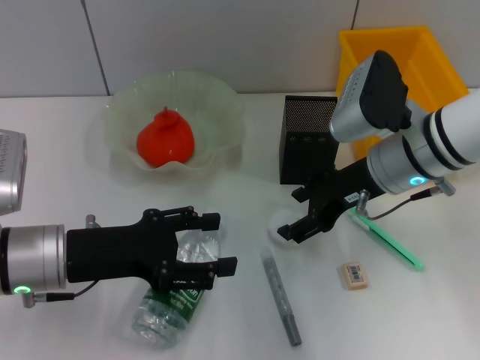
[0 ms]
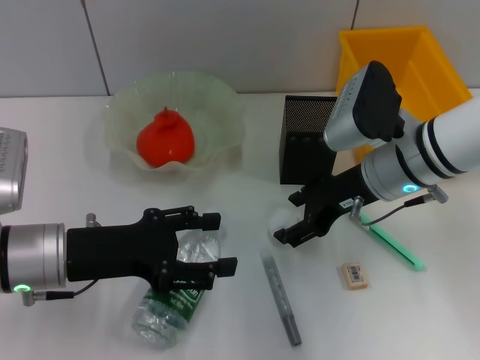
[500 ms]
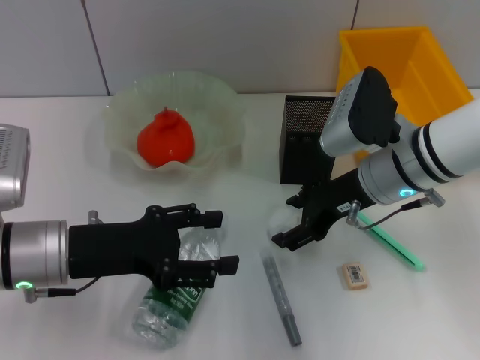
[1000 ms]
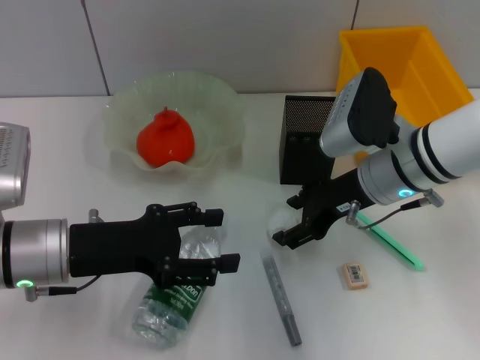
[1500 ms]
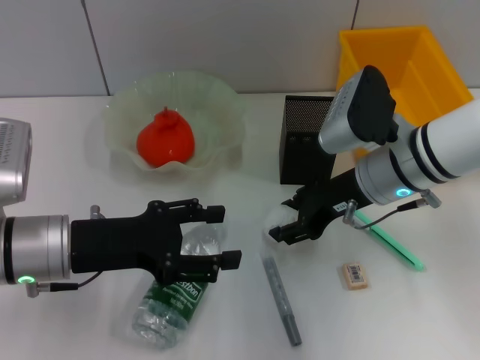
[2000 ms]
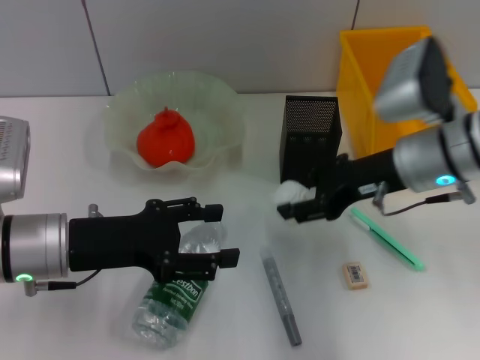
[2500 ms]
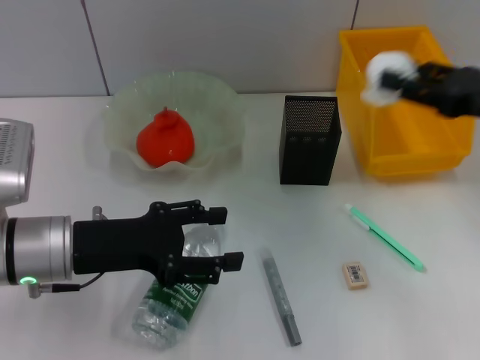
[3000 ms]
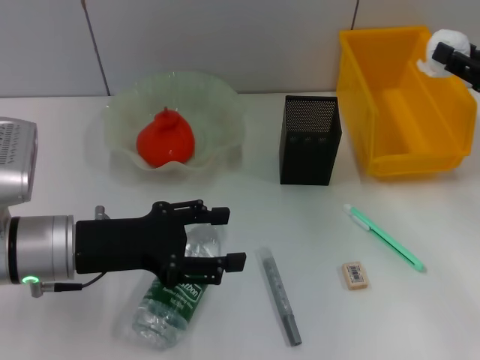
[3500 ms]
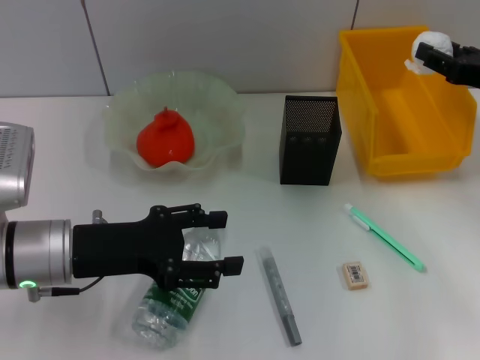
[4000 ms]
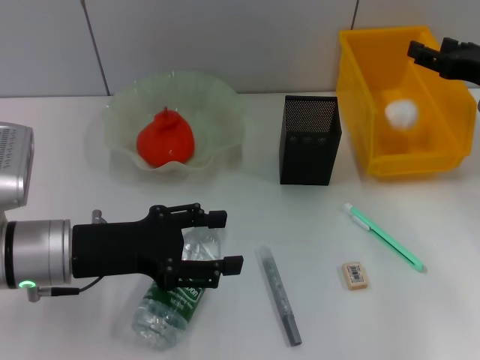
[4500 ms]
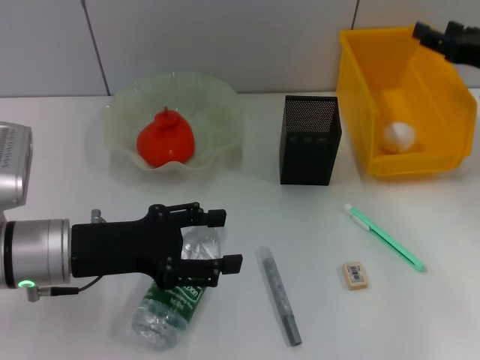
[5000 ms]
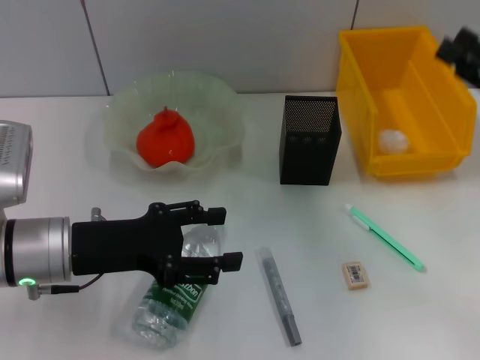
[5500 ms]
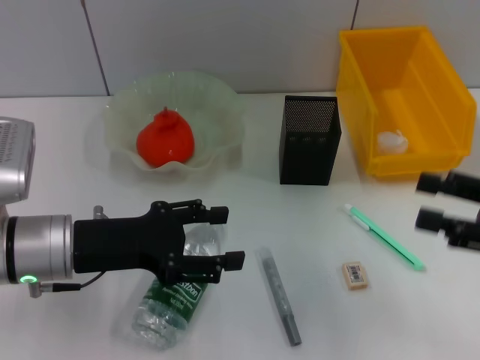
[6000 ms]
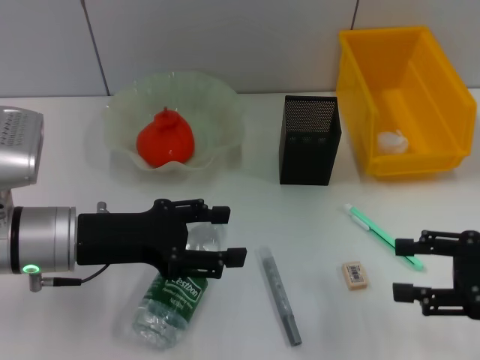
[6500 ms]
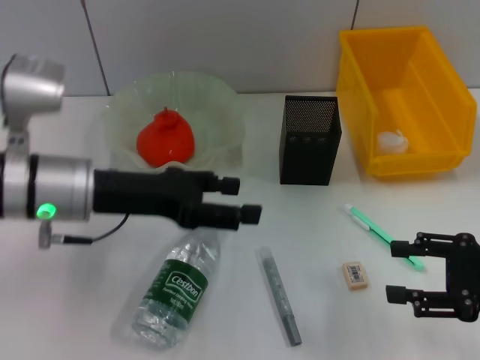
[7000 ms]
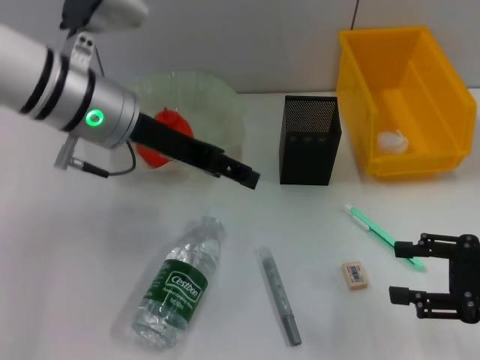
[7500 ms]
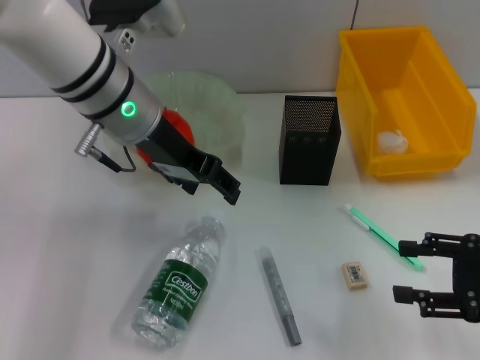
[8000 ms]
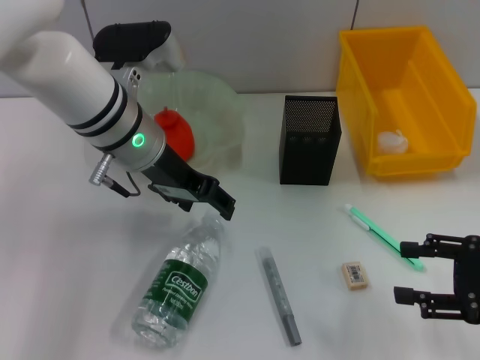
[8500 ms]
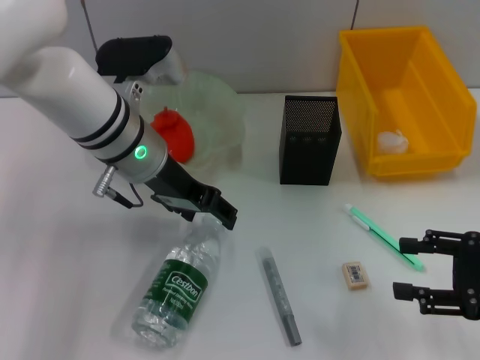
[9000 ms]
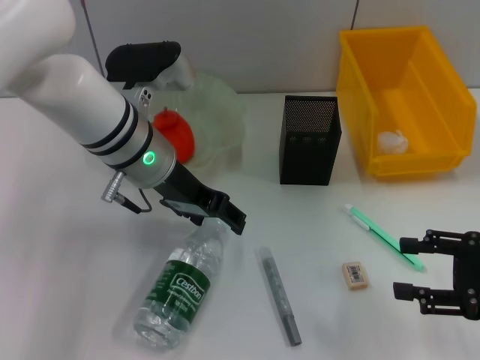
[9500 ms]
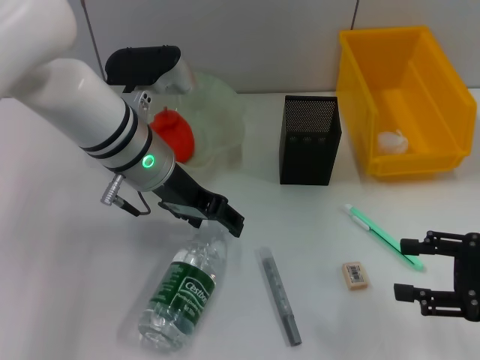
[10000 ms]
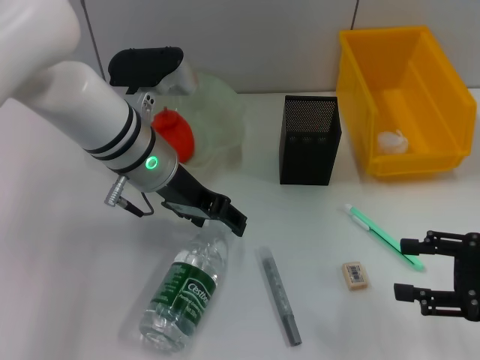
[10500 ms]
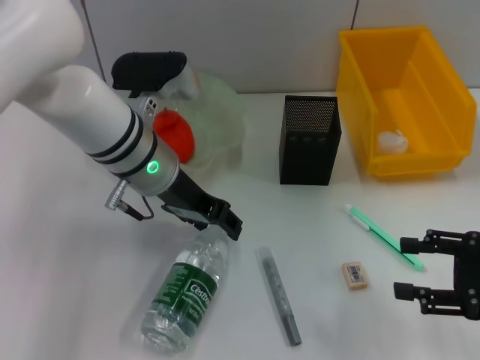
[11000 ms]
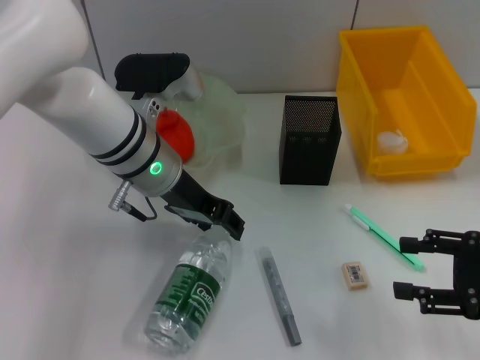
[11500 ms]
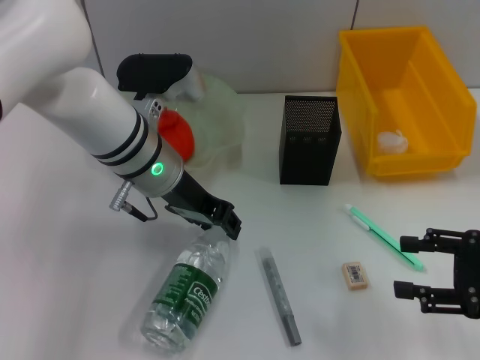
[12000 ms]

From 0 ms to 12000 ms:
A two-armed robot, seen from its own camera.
Step, from 2000 ms to 4500 ms: Place the paper ball into the trash can with the right hand.
From 0 ms to 2000 ms: The right gripper closes up.
From 2000 ms to 4000 ms: The right gripper moves to the right, about 15 cm.
From 4000 ms to 6000 ms: The right gripper shifts roughly 15 cm backward.
From 6000 ms to 8000 ms: The left gripper moves forward, upward and to the right, approximately 20 cm.
From 8000 ms to 10000 ms: The left gripper shifts about 5 cm downward.
From 10000 ms to 12000 ms: The left gripper closes its fingers.

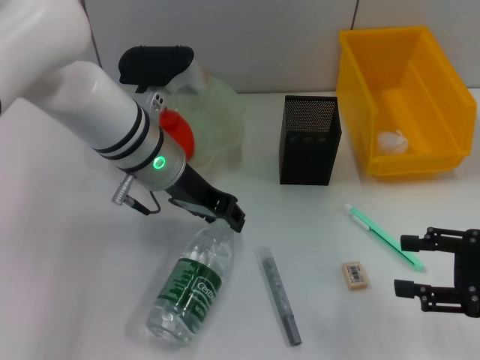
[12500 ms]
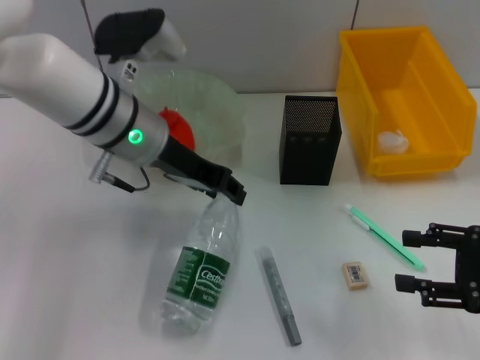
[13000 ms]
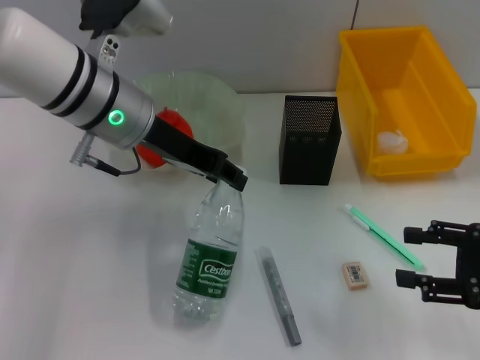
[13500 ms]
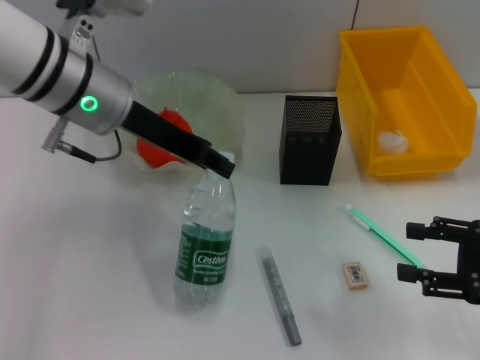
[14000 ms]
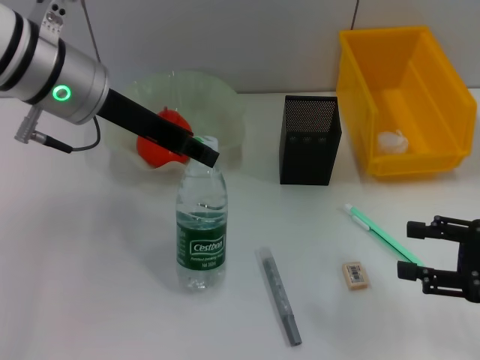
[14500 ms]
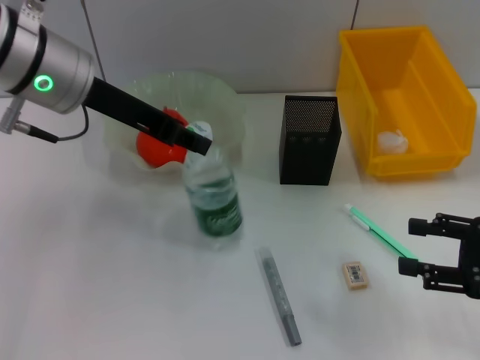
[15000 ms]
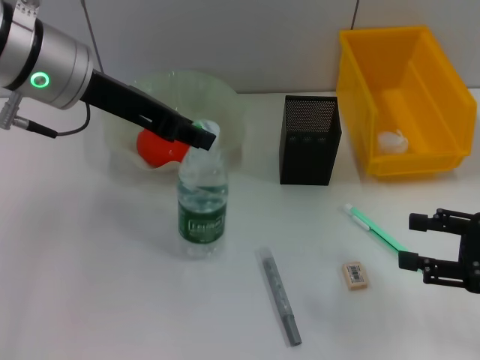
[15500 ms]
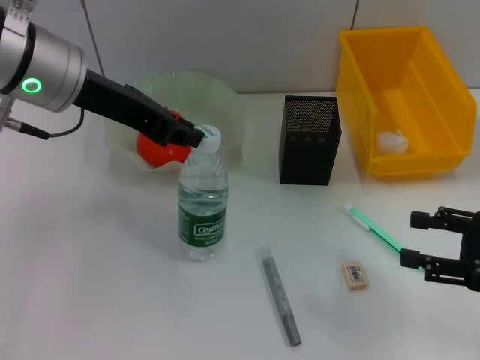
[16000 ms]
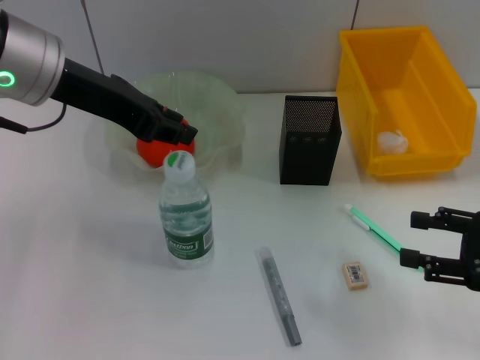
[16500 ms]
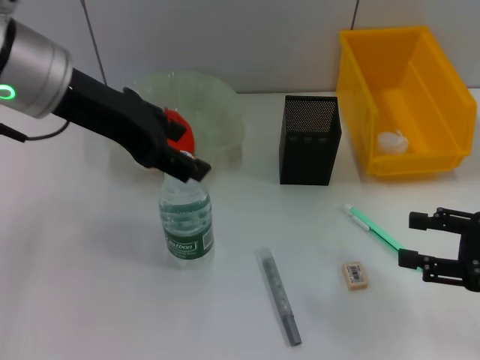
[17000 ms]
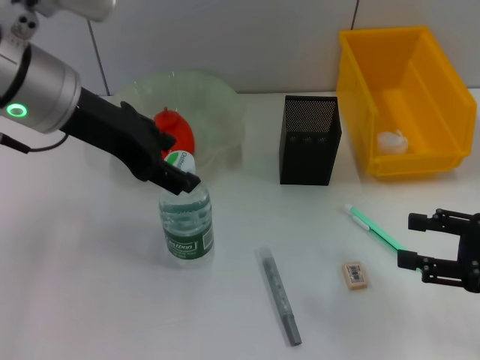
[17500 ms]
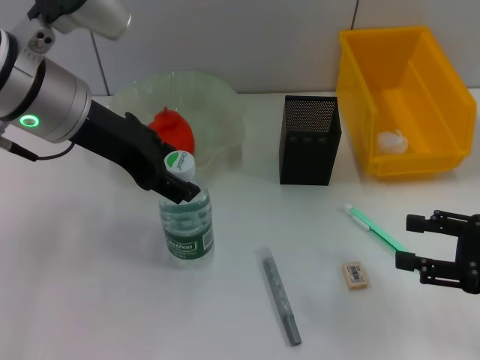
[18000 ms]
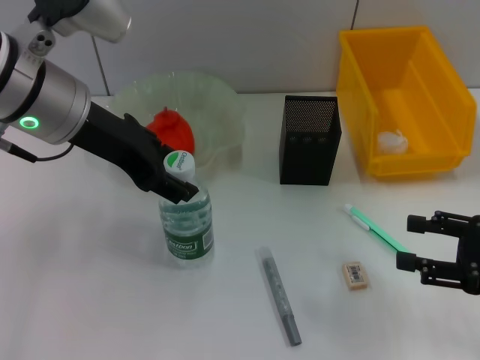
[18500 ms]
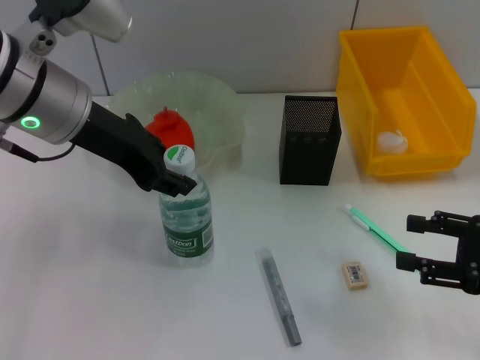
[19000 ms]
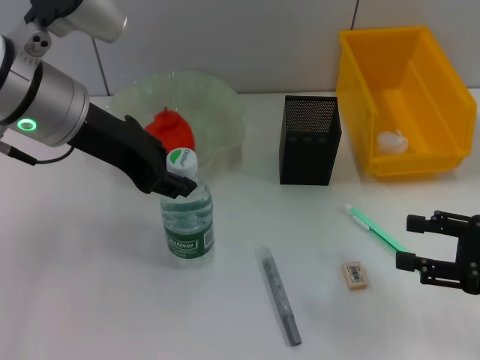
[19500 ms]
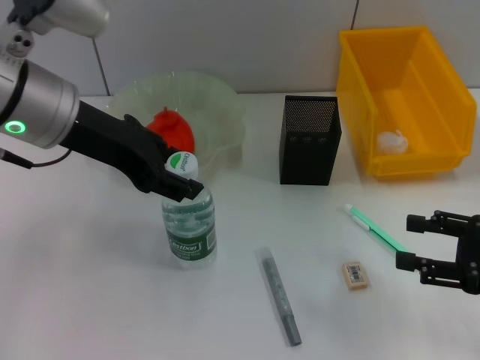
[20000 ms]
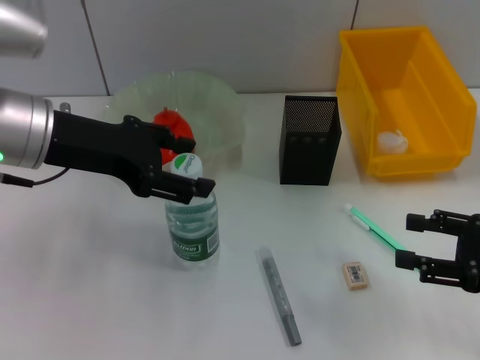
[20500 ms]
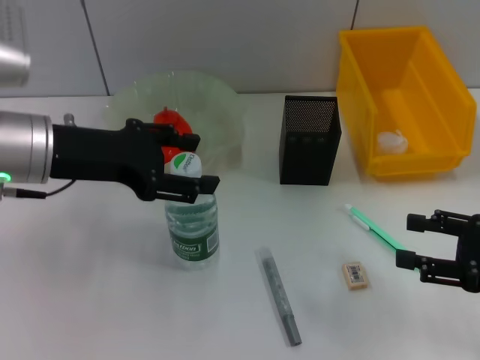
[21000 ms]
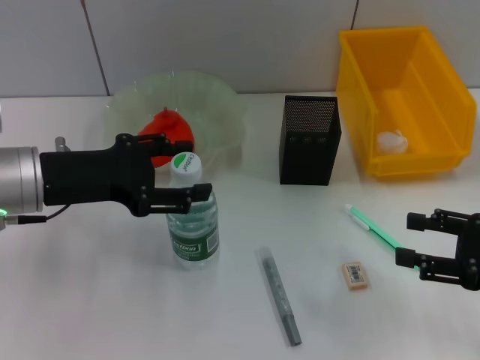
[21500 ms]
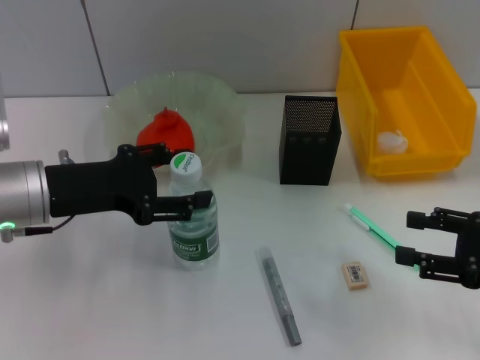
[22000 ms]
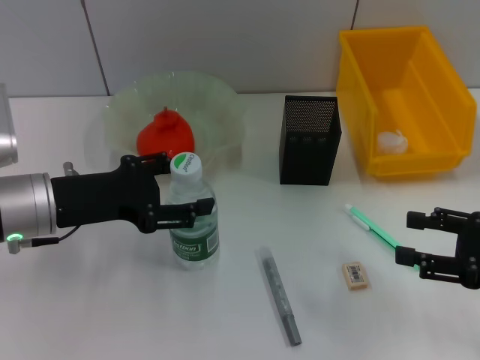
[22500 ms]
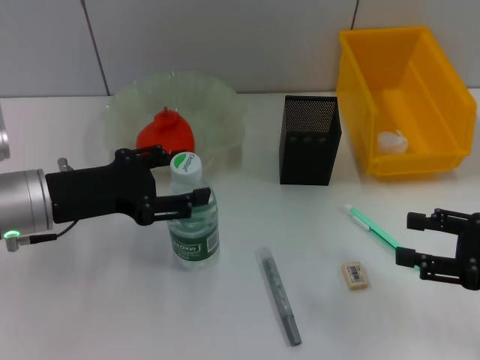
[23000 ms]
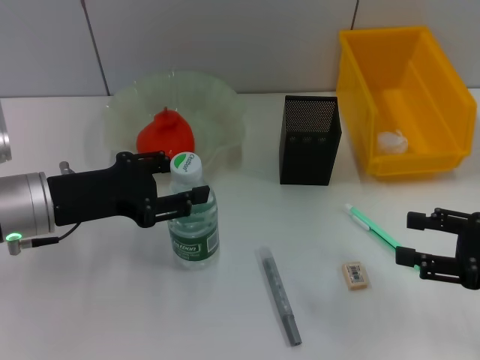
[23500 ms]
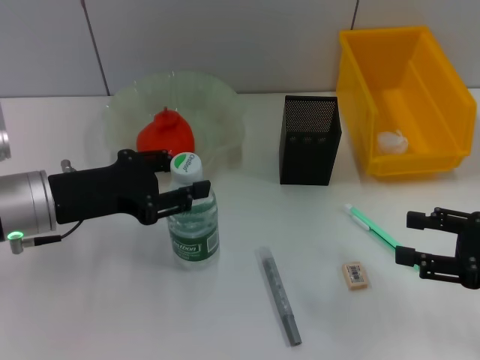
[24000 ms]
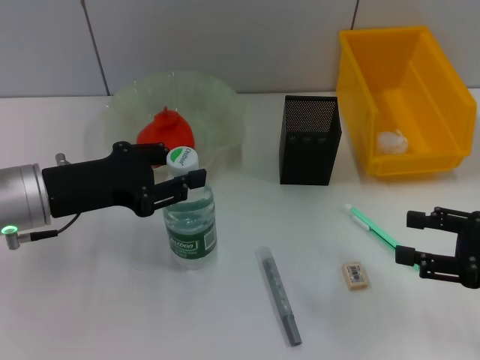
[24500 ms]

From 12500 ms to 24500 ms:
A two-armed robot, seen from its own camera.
Step, from 12500 ms to 16500 ms: Place the water bottle on the table with the left hand.
Step, from 17000 ms to 24500 ms: Grab the water bottle with the left hand.
From 12500 ms to 14500 ms: The left gripper heads upward and to the left, covering about 10 cm.
From 14500 ms to 16500 ms: The grippers move only a little.
From 16500 ms to 18500 ms: The left gripper opens up.
From 20500 ms to 22500 ms: The left gripper goes roughly 10 cm downward.
From 22500 ms to 24500 ms: The left gripper closes up.

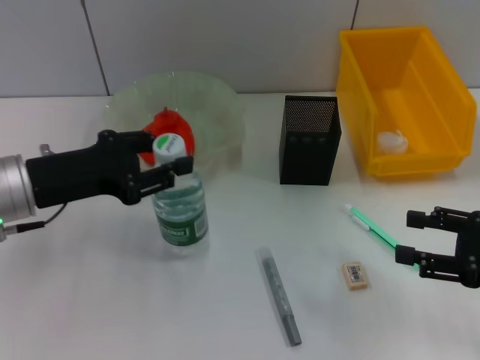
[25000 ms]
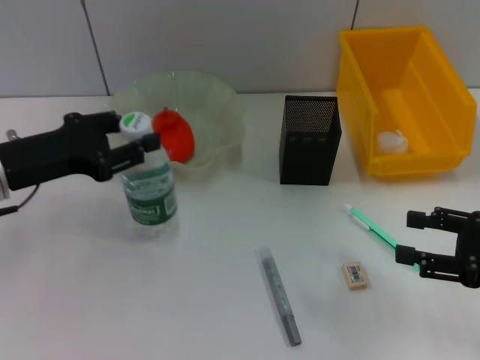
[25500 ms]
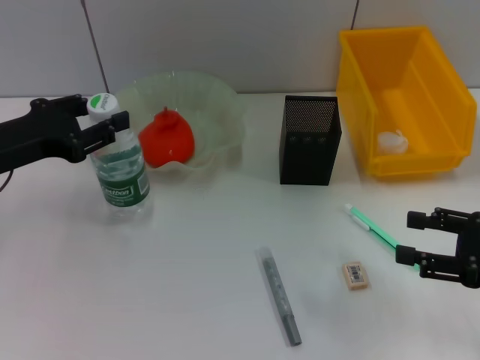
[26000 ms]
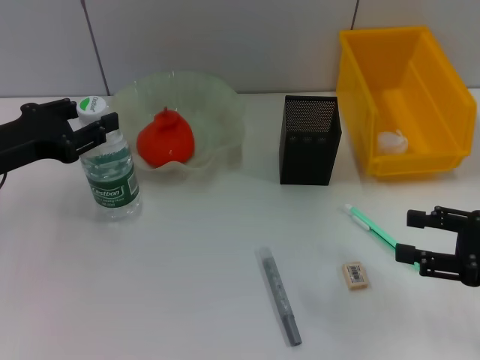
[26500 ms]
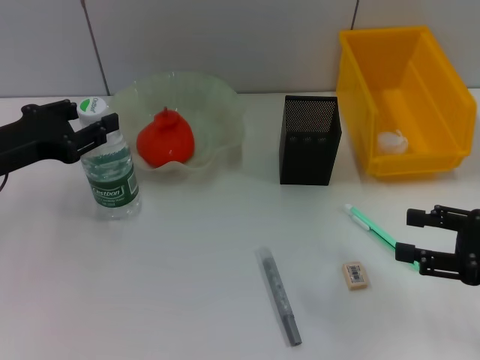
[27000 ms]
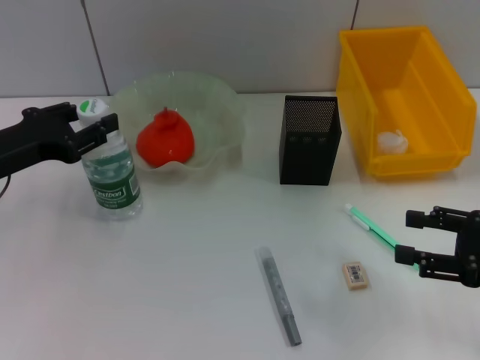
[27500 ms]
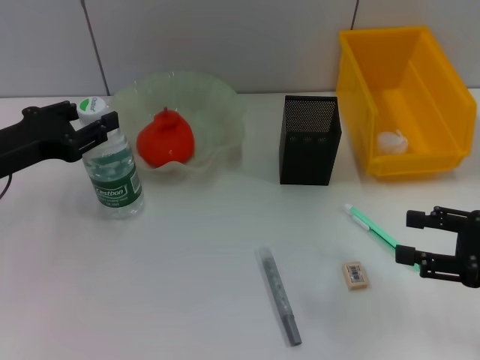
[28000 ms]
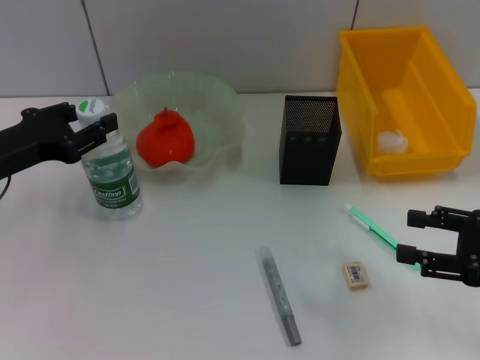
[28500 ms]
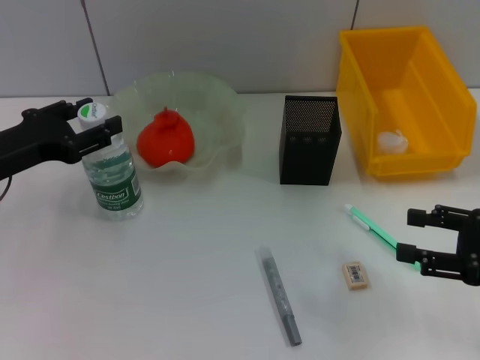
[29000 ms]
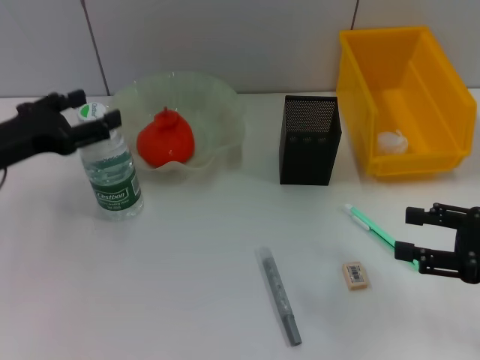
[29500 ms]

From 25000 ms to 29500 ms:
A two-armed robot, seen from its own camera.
Step, from 25000 ms to 29000 ms: Place the water bottle on the table with the left hand.
From 25000 ms to 27000 ms: The left gripper heads to the left, covering approximately 5 cm.
From 27000 ms to 29500 ms: The left gripper opens up.
